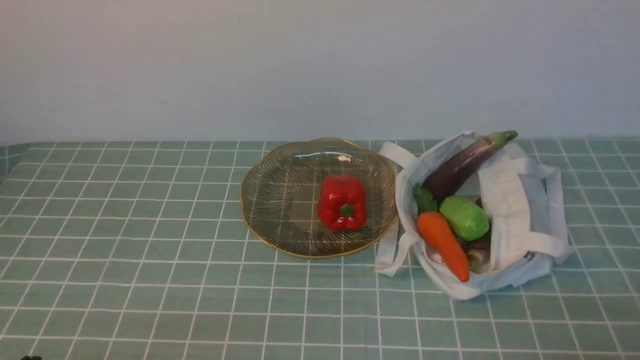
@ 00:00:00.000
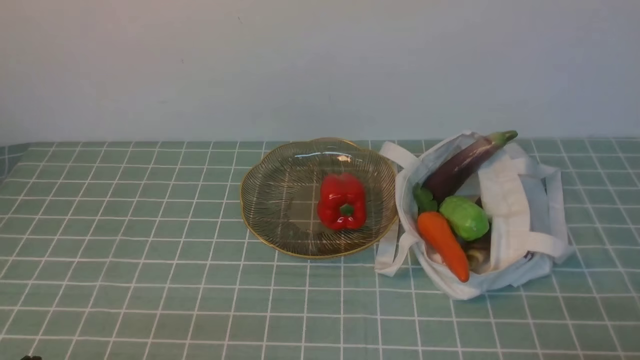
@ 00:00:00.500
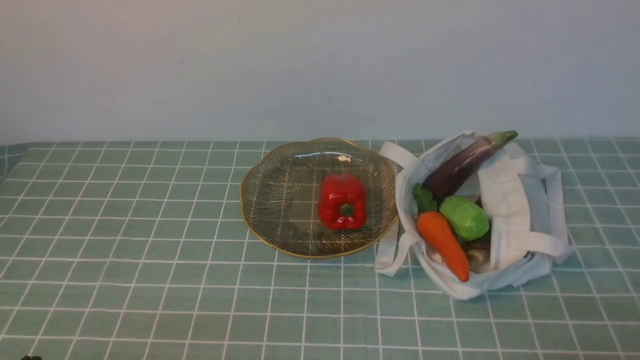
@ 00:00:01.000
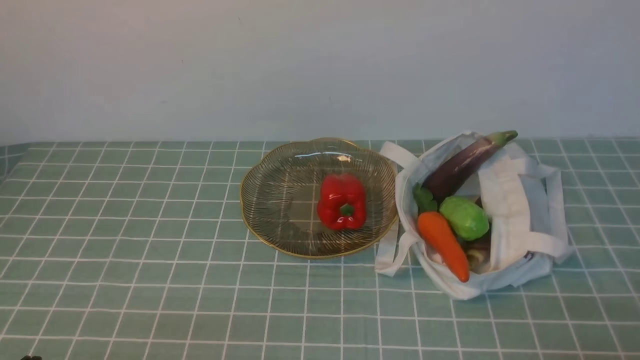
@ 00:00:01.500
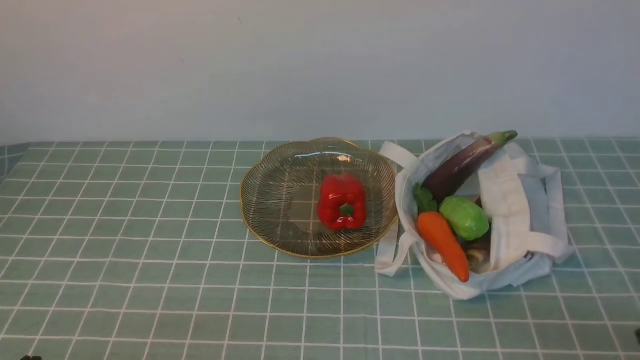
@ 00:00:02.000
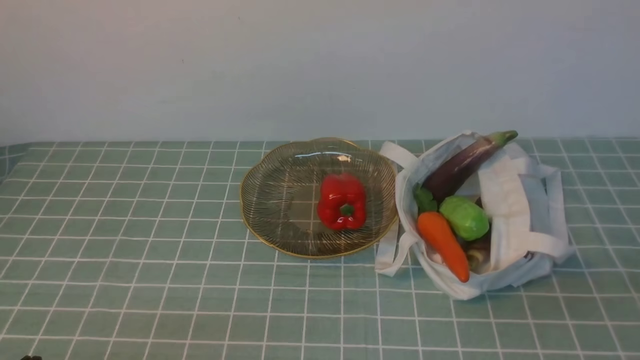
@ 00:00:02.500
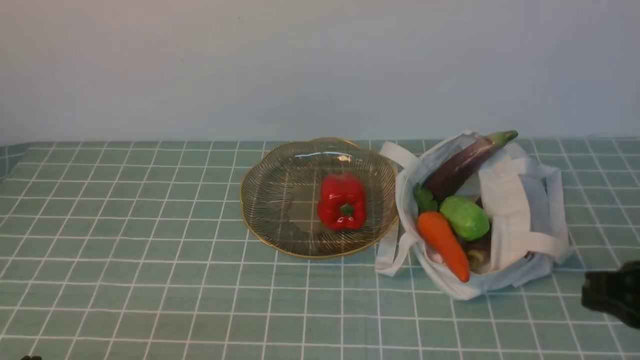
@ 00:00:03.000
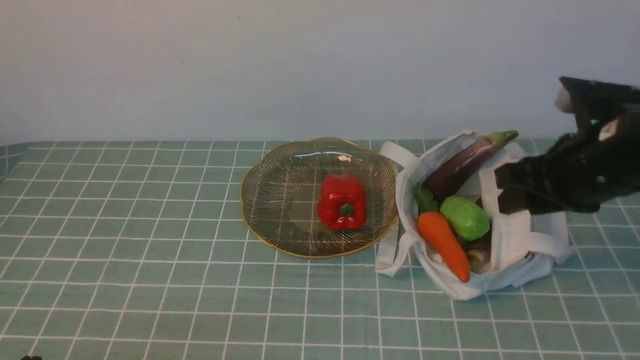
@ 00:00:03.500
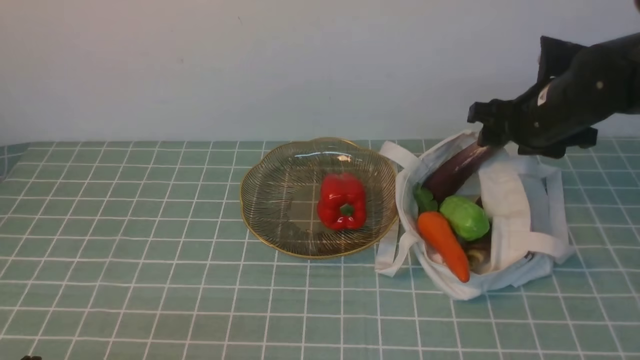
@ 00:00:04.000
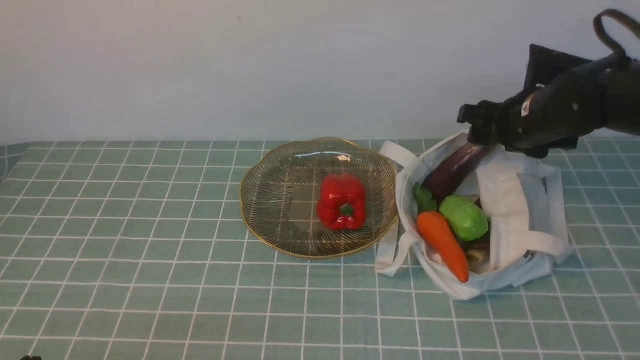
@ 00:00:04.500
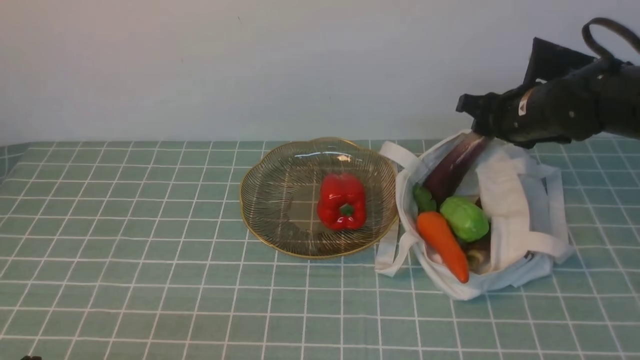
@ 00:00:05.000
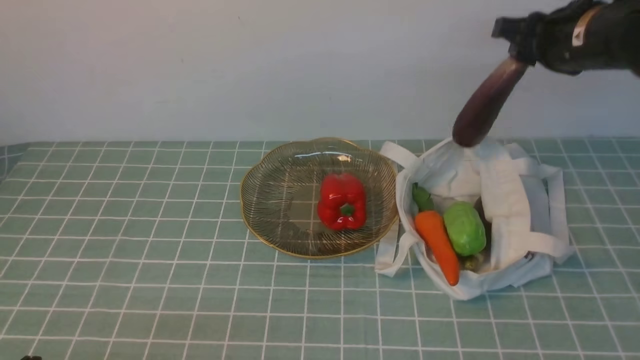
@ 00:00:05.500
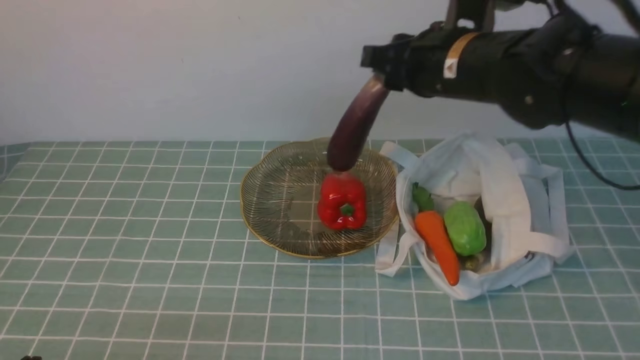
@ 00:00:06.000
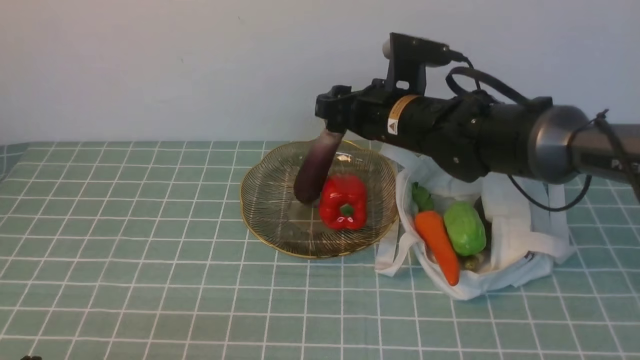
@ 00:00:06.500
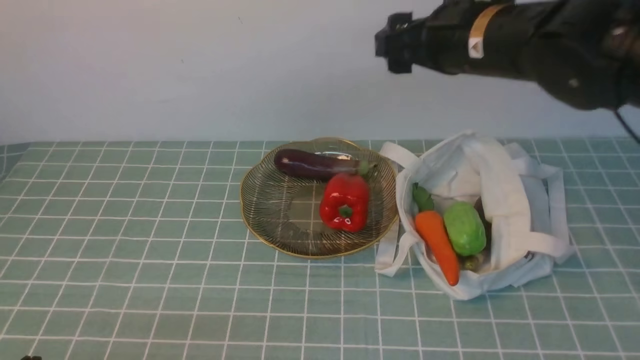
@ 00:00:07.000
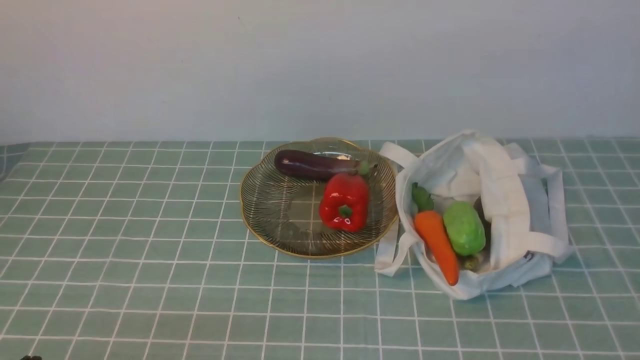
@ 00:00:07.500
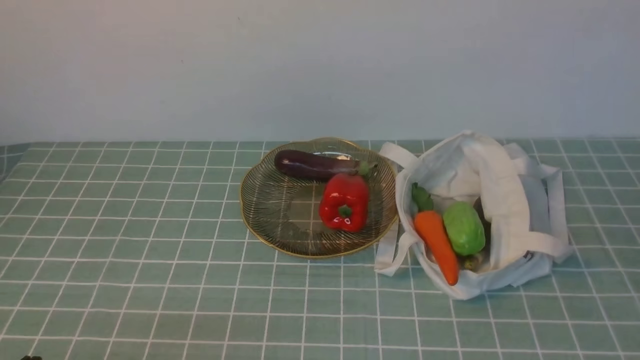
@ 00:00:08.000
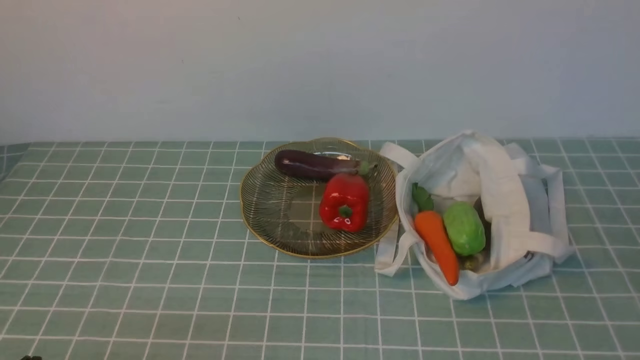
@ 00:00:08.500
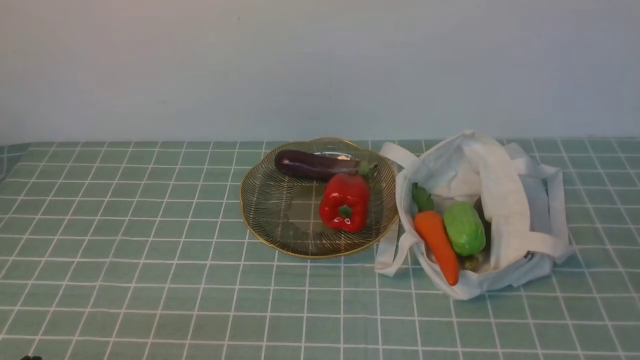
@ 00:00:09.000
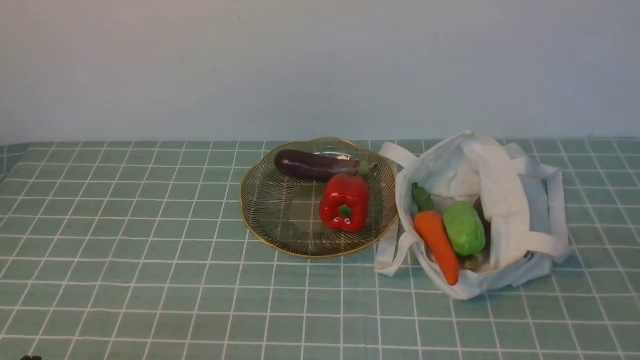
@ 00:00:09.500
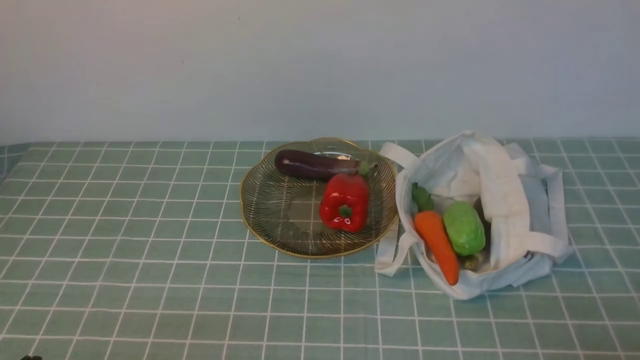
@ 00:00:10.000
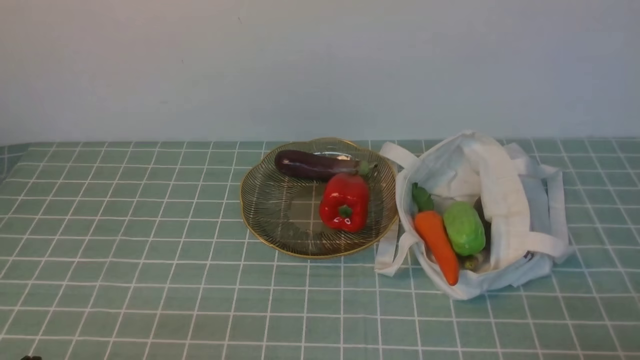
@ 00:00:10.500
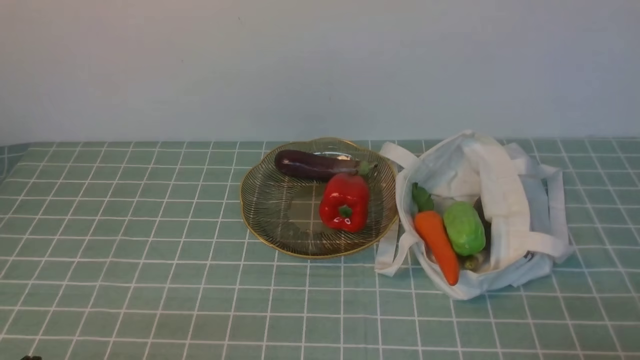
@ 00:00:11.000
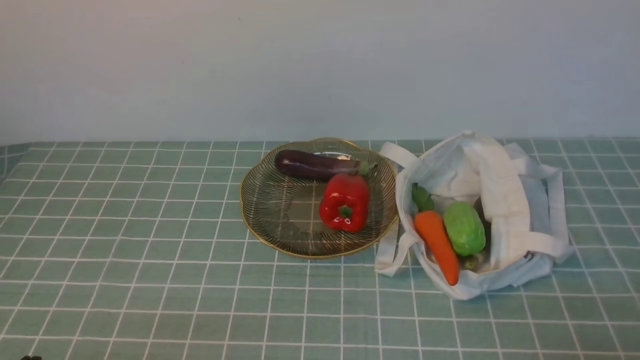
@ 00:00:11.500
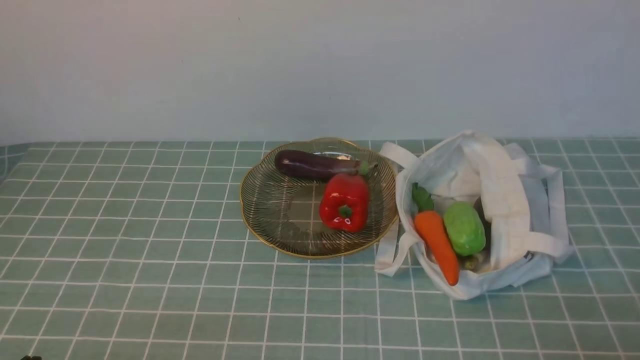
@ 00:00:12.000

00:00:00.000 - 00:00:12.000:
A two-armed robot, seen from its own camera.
Task of the whole recording: take vegetables from cloth bag on blue coffee tablecloth place on plate.
Step, 00:00:00.000 - 00:00:05.000: Grasp the eggplant with right gripper.
Step, 00:00:05.500 - 00:00:06.500: Place the eggplant on the plate with right gripper.
00:00:02.000 - 00:00:04.000: The right gripper travels forward by roughly 35 cm, and opens up.
00:00:04.000 - 00:00:06.000: The right gripper heads to the left and upward, covering about 10 cm, and closes.
00:00:06.000 - 00:00:08.000: The right gripper is displaced backward and to the right by about 35 cm, and closes.
00:00:10.000 - 00:00:12.000: Neither gripper changes place.
